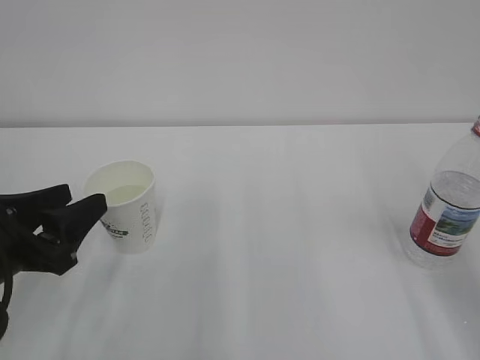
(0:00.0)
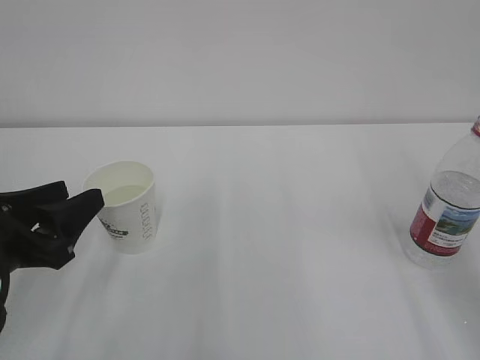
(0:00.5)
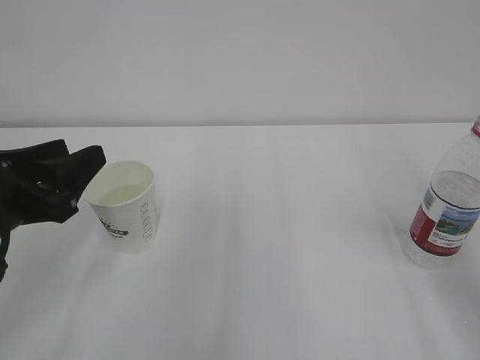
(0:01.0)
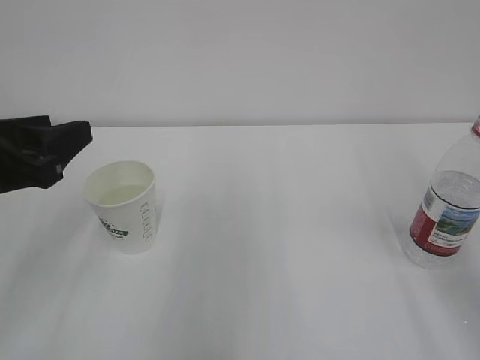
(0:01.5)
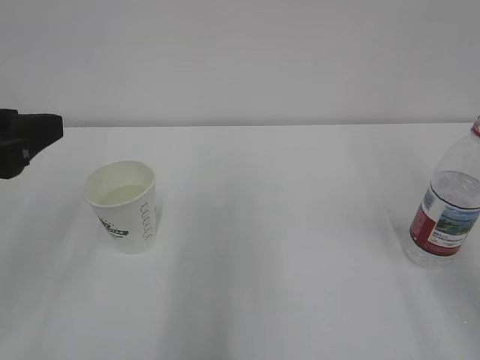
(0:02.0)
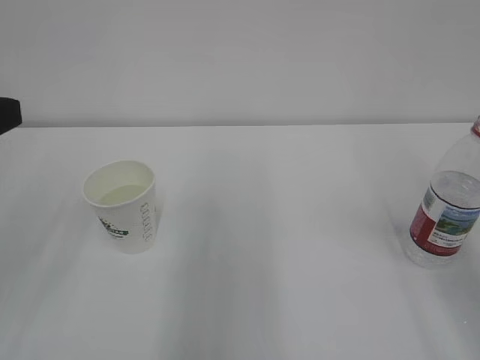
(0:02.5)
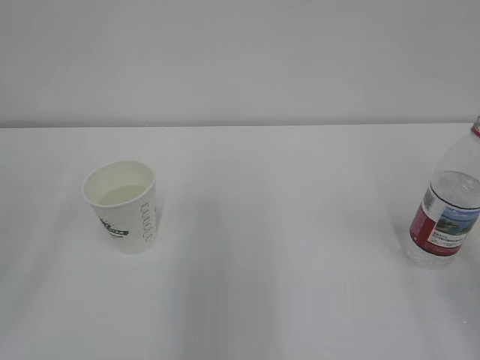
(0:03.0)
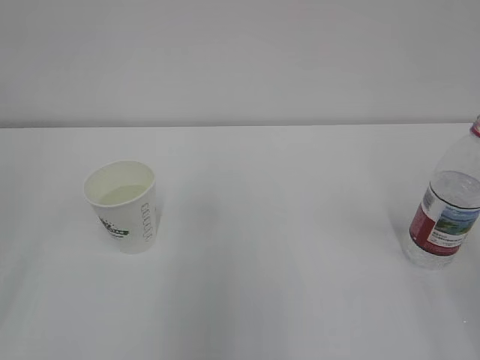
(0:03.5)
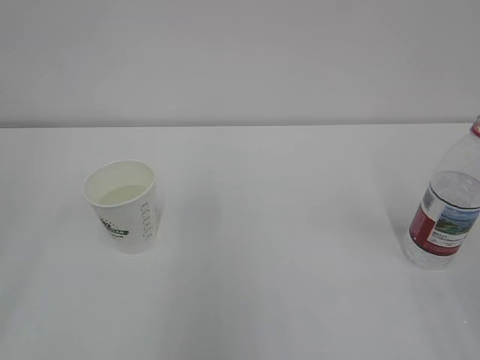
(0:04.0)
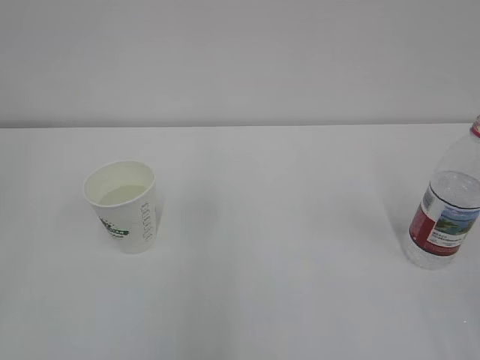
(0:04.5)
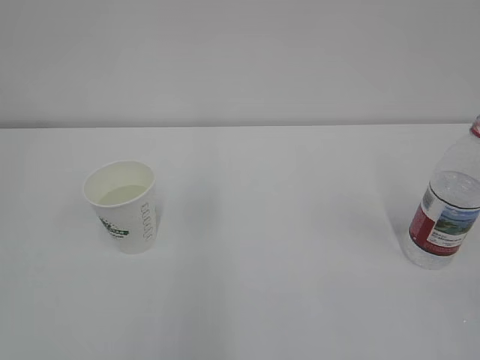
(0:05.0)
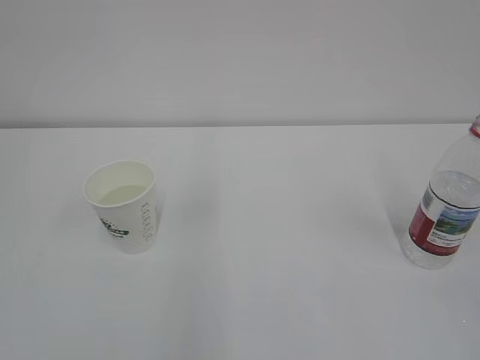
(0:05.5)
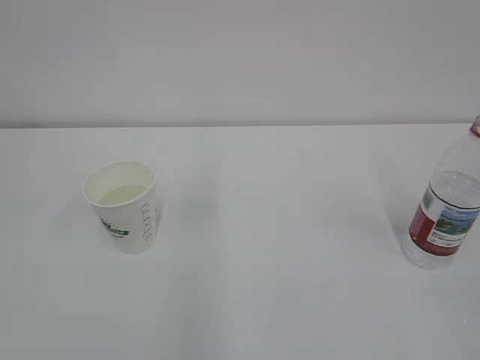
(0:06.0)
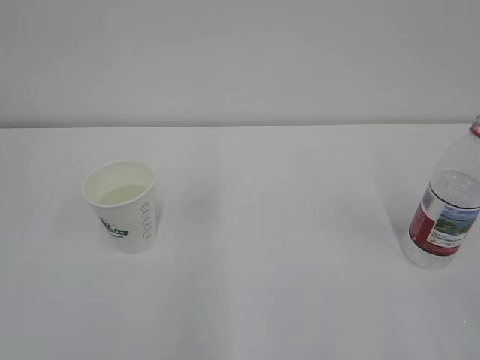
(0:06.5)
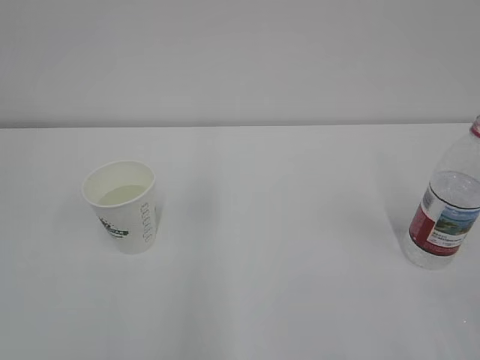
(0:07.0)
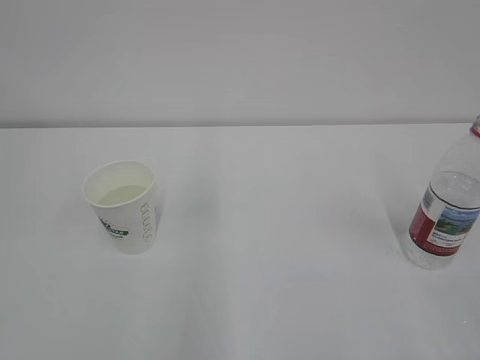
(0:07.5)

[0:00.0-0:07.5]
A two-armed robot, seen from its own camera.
0:00.0 to 0:02.0: The left gripper moves upward, roughly 10 cm; the right gripper moves upward, approximately 5 cm.
0:02.0 to 0:04.0: The left gripper moves backward, upward and to the left, roughly 15 cm.

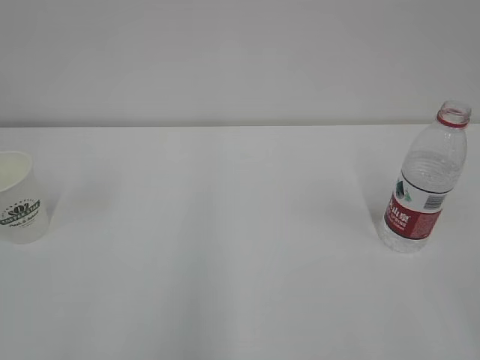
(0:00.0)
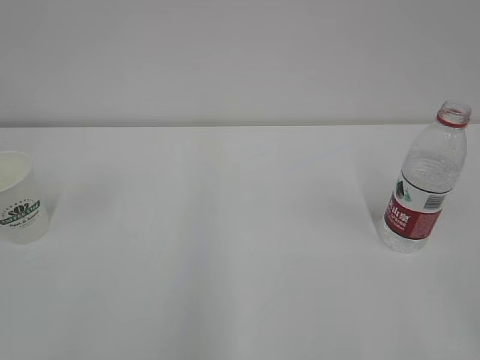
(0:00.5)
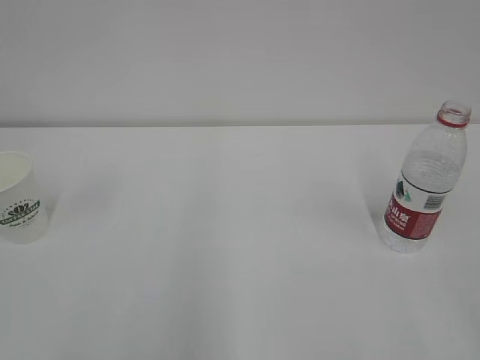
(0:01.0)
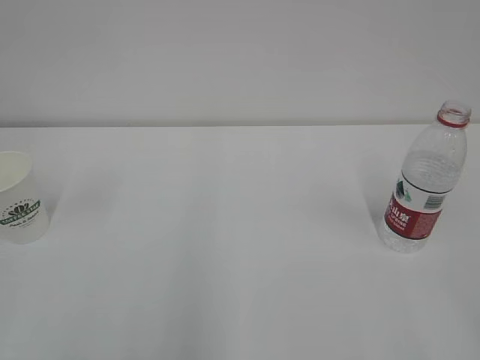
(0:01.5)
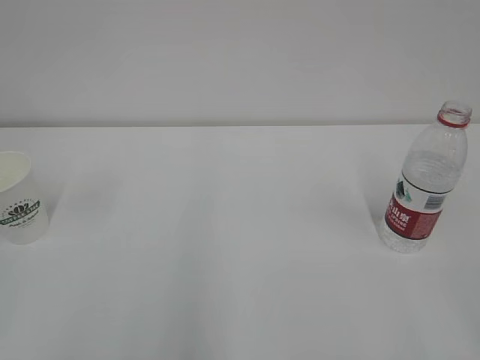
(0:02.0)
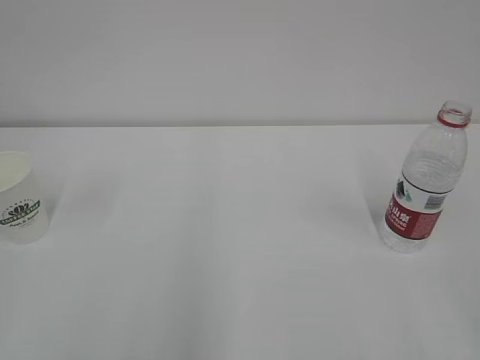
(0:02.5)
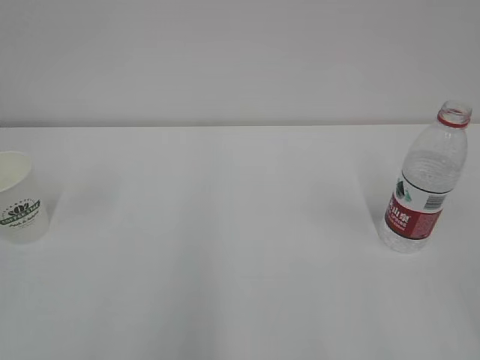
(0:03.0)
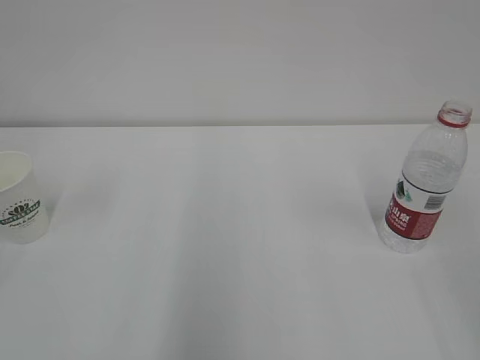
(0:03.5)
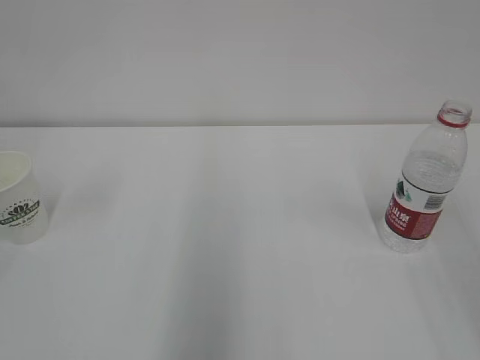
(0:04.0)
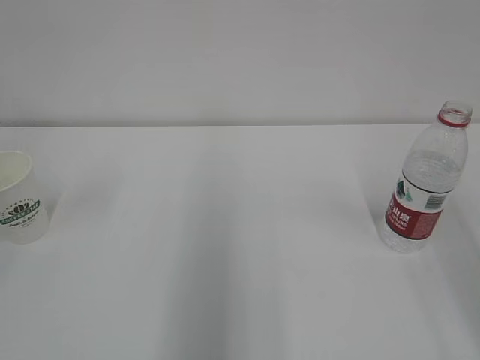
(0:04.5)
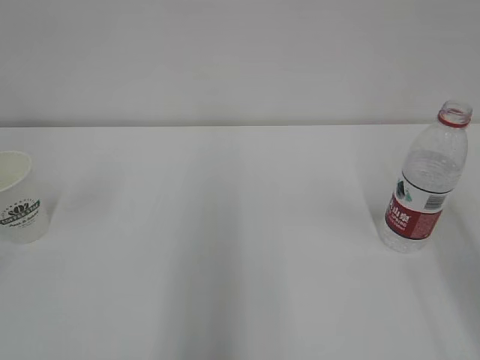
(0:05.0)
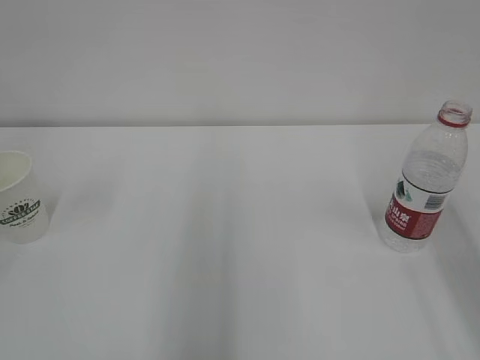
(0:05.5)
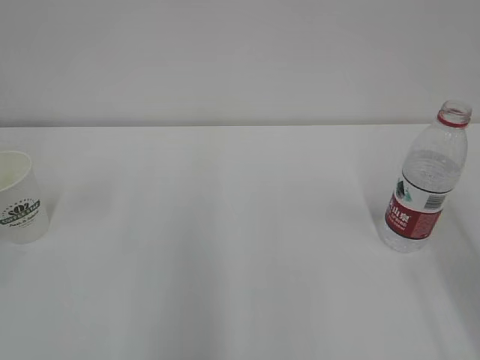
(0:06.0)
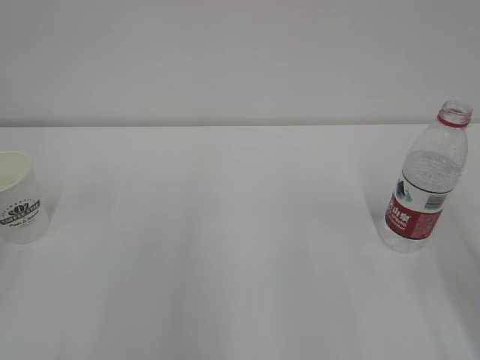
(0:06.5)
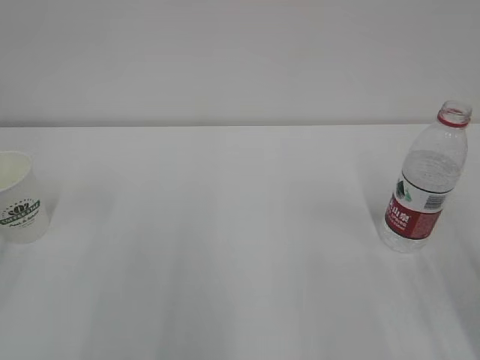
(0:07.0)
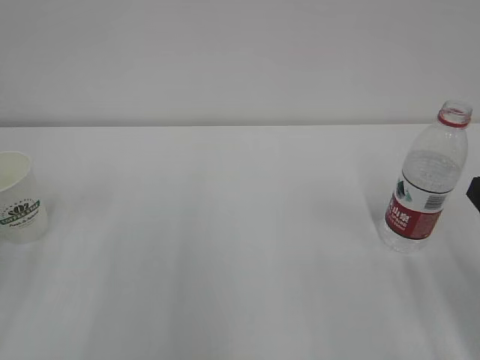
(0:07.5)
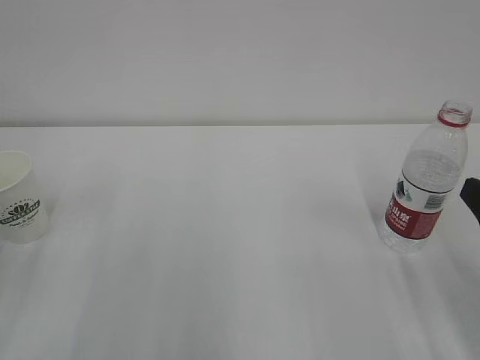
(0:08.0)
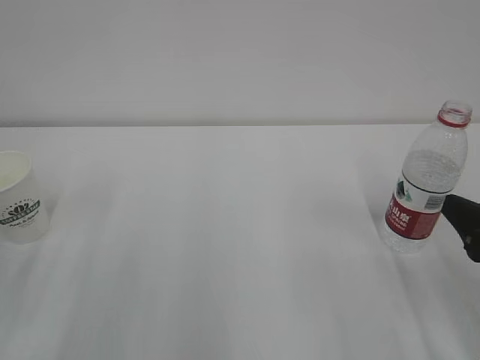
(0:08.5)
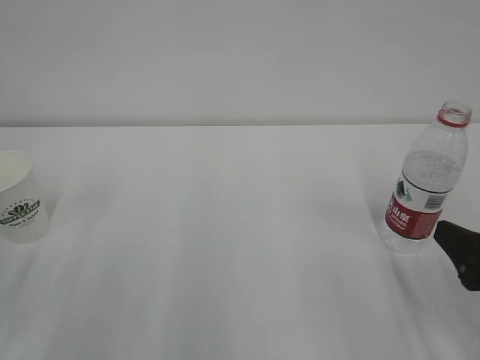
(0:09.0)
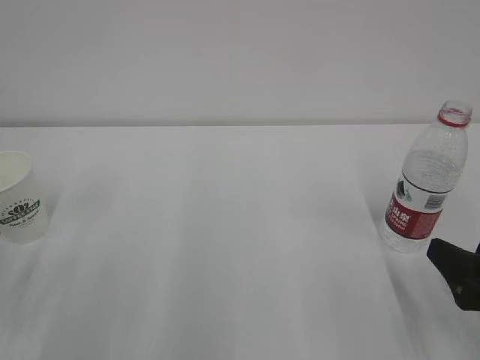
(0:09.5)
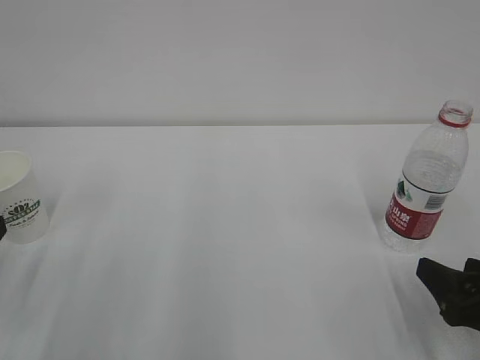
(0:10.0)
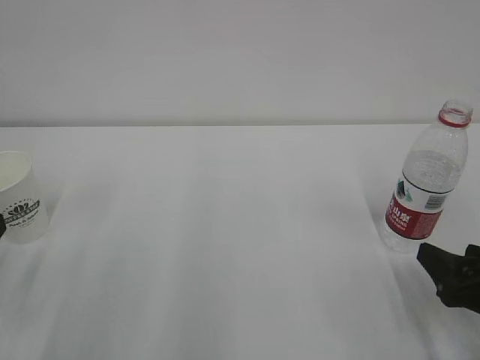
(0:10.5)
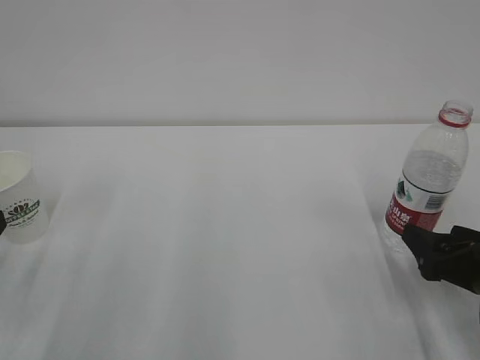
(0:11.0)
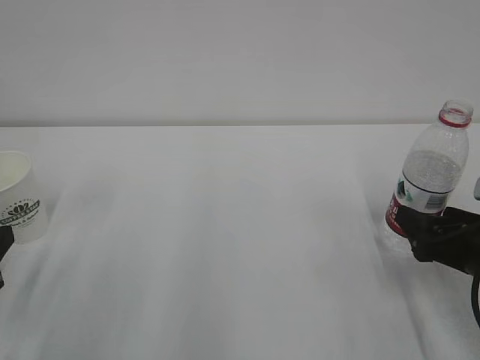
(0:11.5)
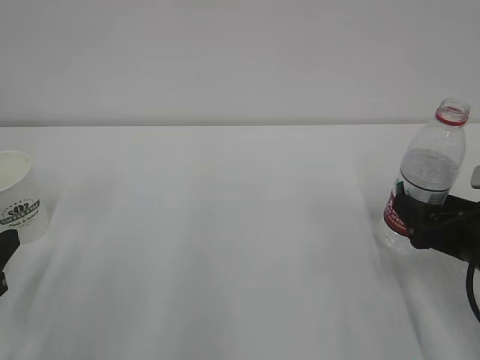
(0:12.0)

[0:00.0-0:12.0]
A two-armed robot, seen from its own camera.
0:08.0 to 0:10.0: The right gripper goes approximately 10 cm downward.
0:10.0 to 0:12.0: The right gripper heads forward, covering some 10 cm.

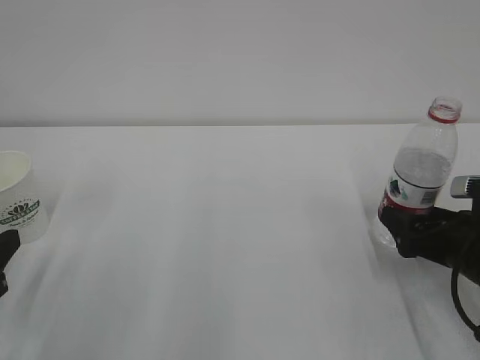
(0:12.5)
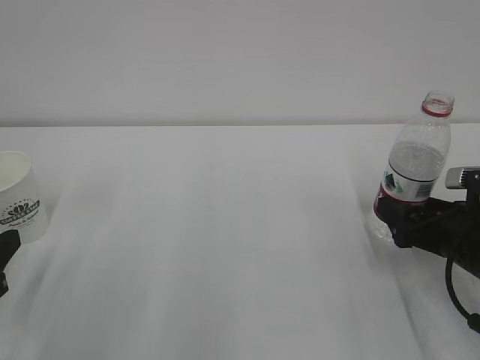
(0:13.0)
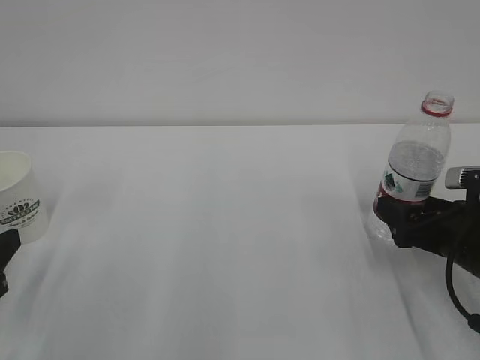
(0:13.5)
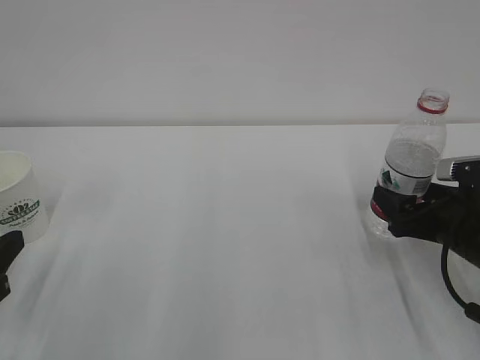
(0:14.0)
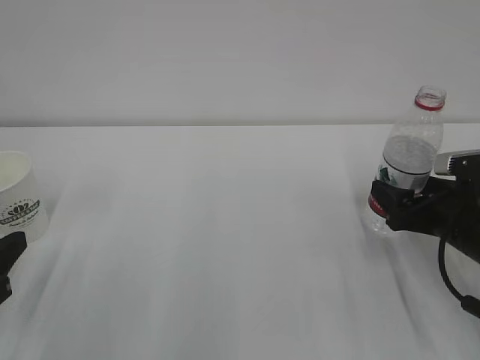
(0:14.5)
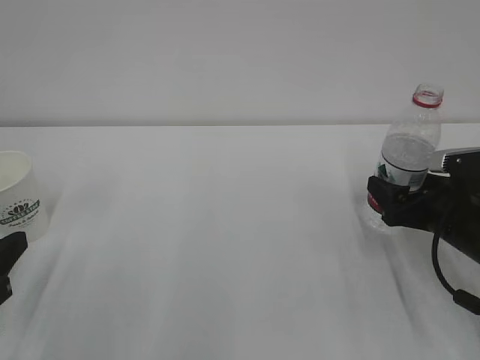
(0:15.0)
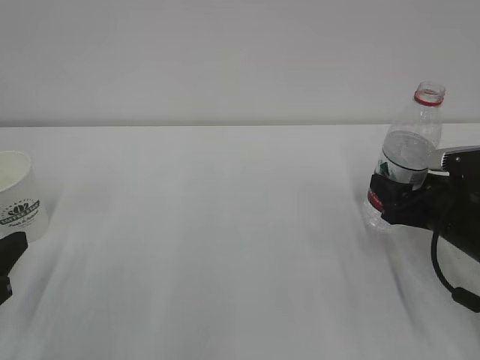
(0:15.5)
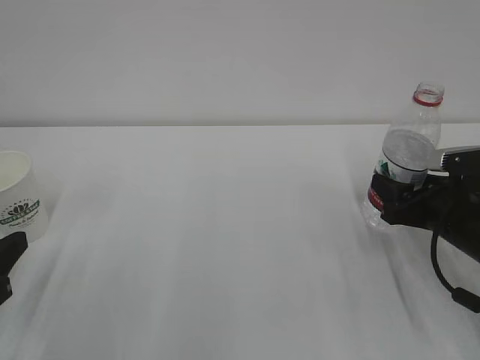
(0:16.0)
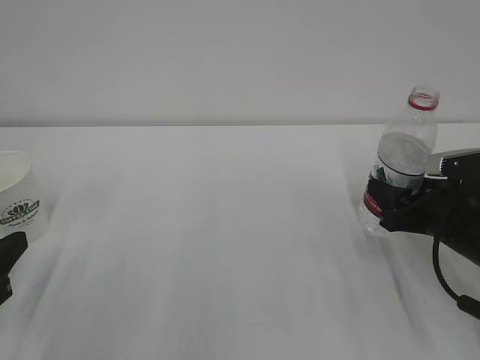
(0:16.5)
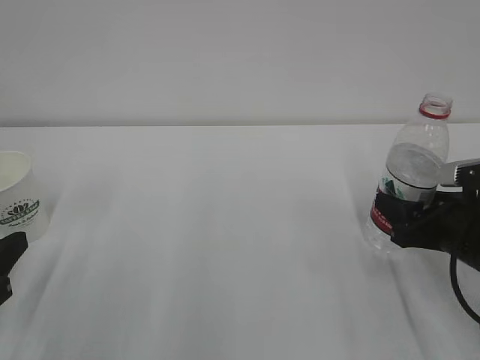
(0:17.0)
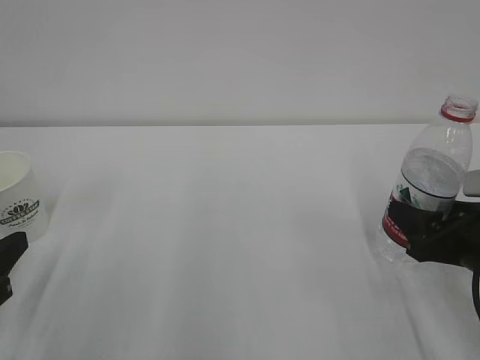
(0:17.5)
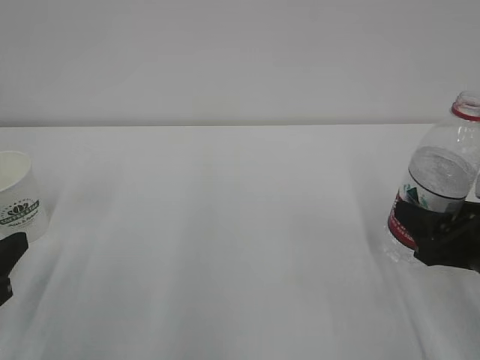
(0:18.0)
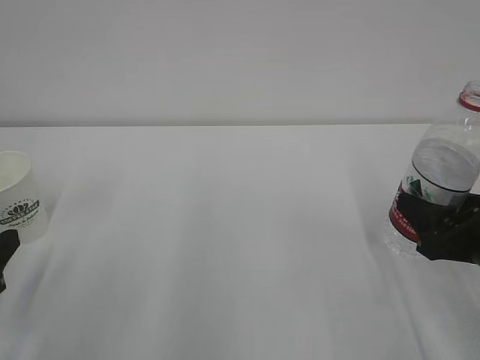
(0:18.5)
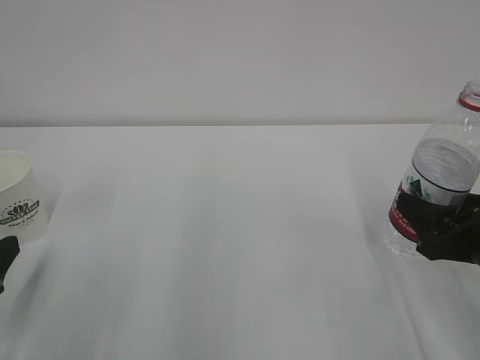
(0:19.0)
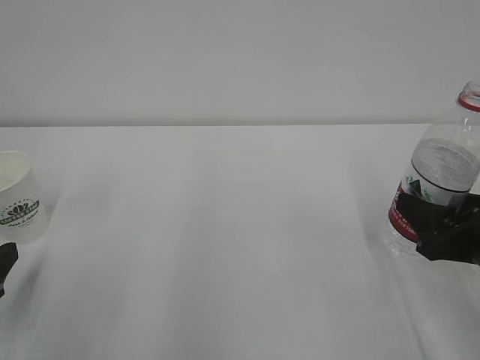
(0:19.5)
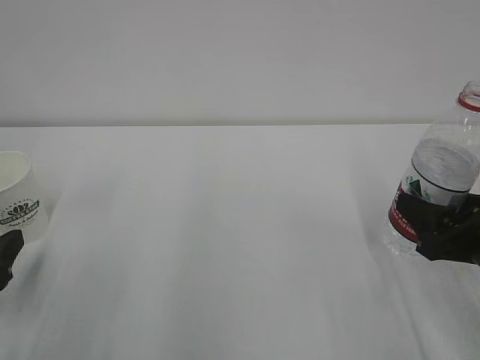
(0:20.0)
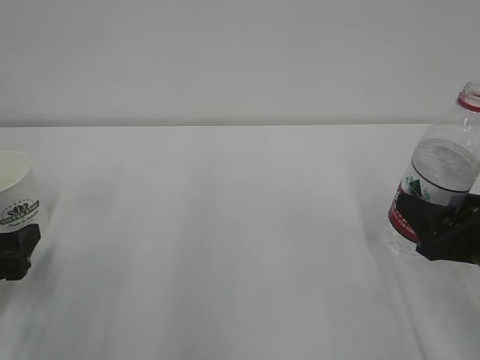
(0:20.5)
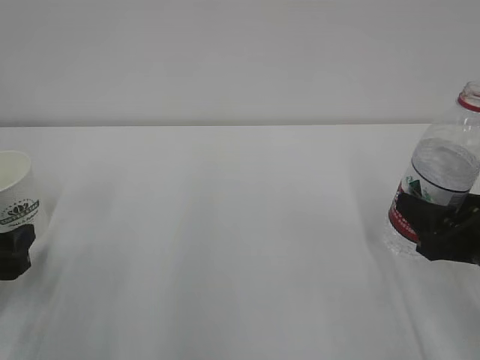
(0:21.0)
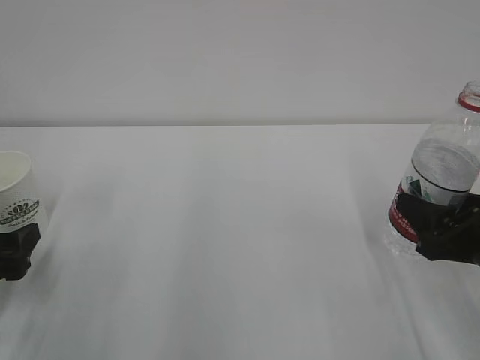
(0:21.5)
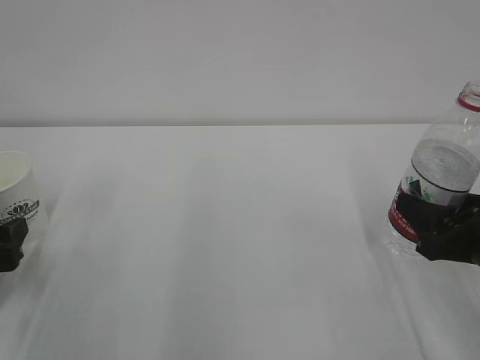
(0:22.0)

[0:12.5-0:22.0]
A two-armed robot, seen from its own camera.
0:12.5 to 0:14.5: The grippers stay close to where they were, moving slightly.
0:14.5 to 0:16.5: The right gripper closes its fingers.
0:16.5 to 0:18.0: The right gripper moves backward, some 5 cm.
